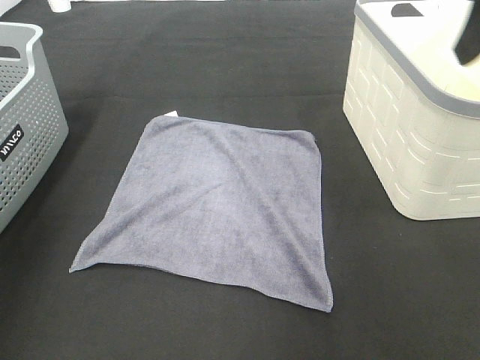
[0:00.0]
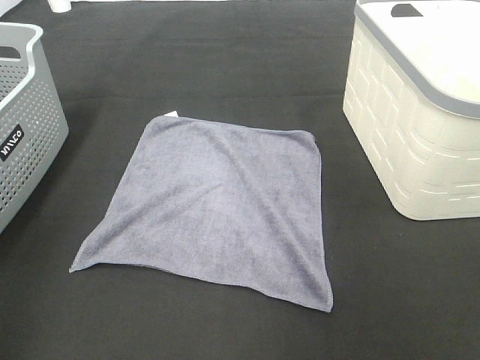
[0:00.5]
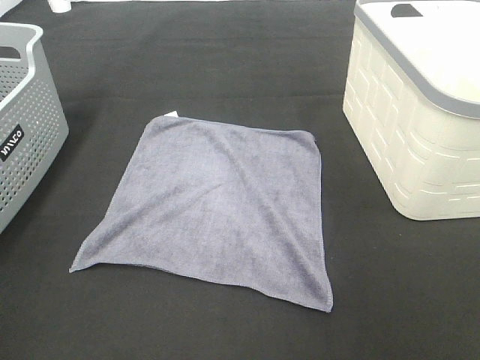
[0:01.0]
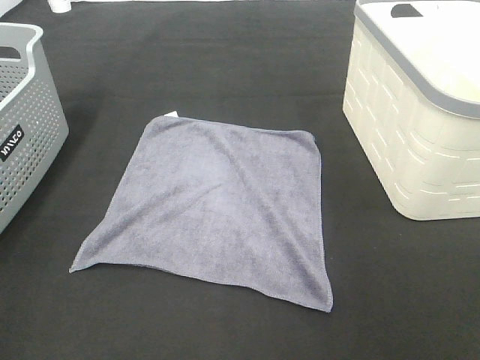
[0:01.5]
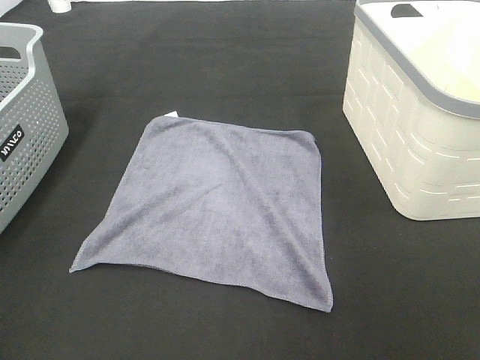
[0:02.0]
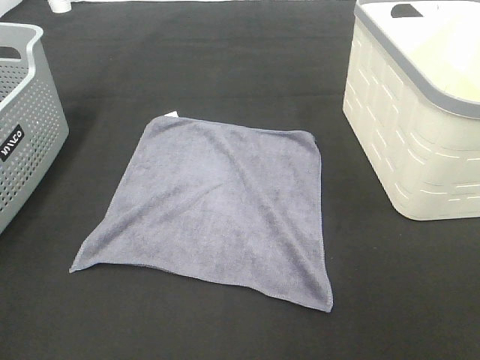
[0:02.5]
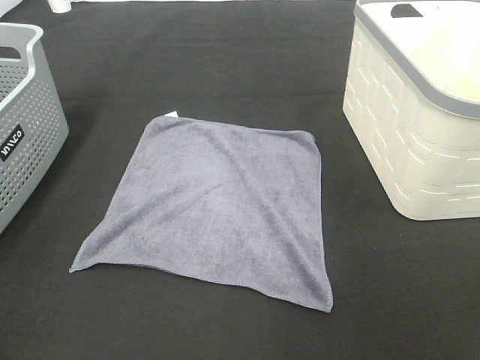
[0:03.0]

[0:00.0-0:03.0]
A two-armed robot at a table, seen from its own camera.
Task of the whole recording: Remove the towel and place it.
0:00.0 to 0:01.5: The right gripper shifts roughly 25 cm backward.

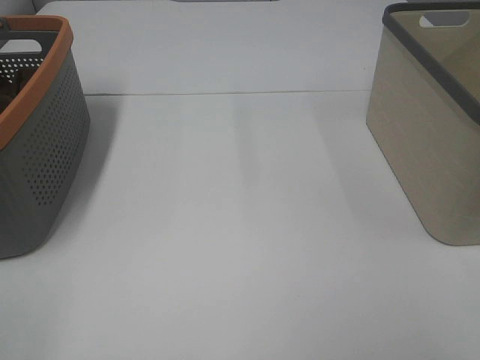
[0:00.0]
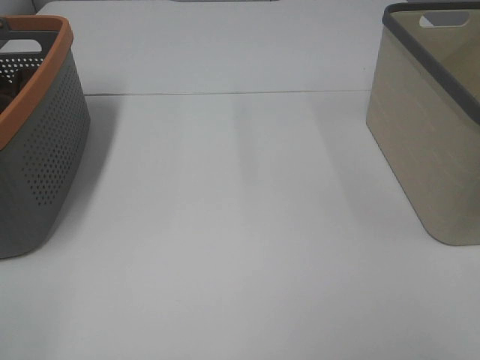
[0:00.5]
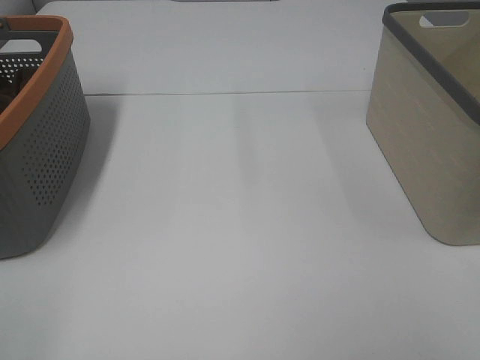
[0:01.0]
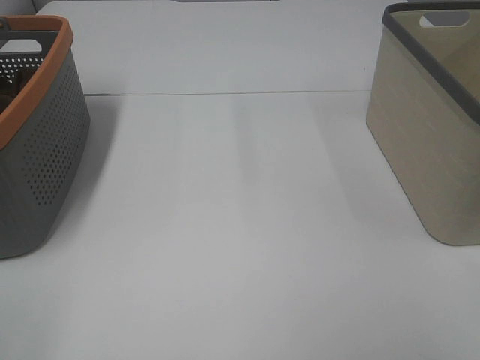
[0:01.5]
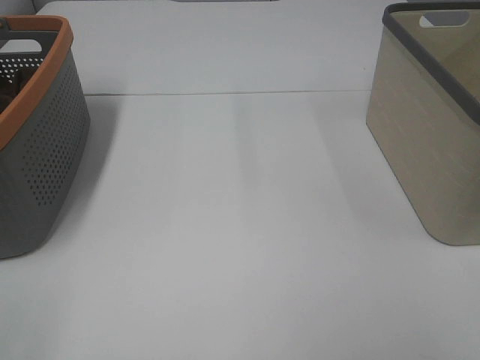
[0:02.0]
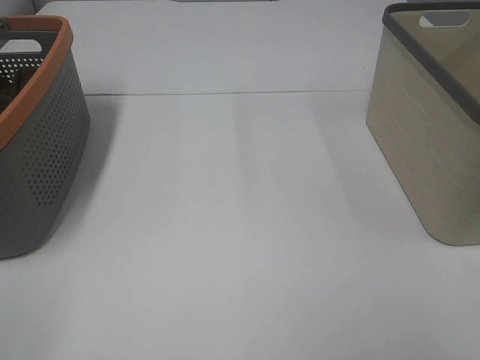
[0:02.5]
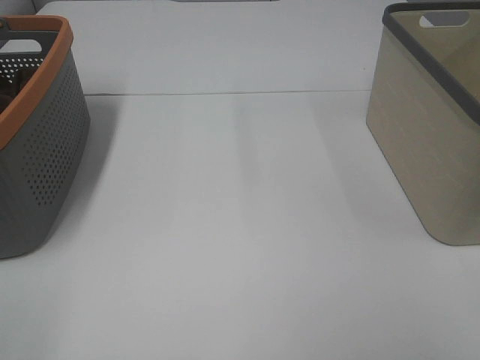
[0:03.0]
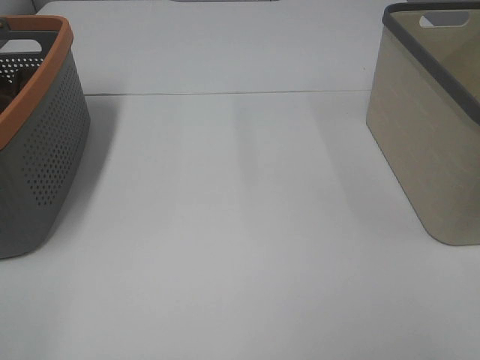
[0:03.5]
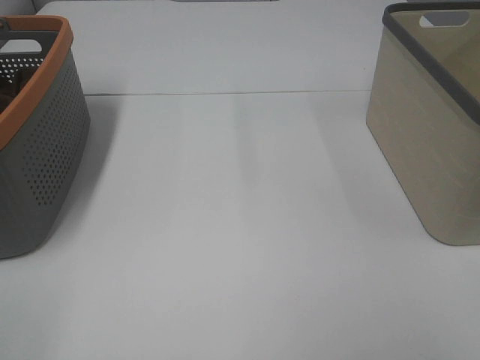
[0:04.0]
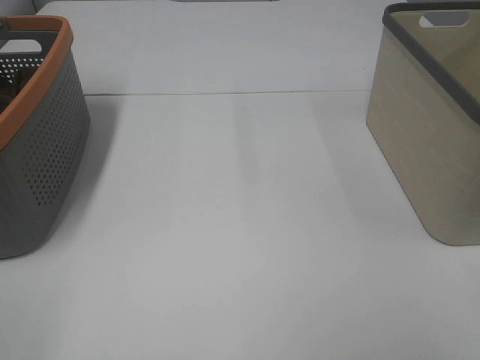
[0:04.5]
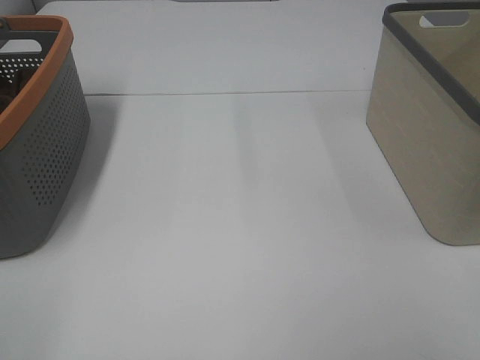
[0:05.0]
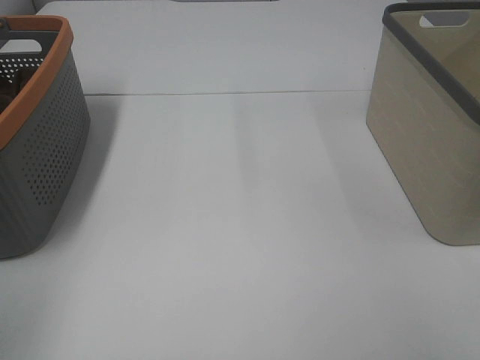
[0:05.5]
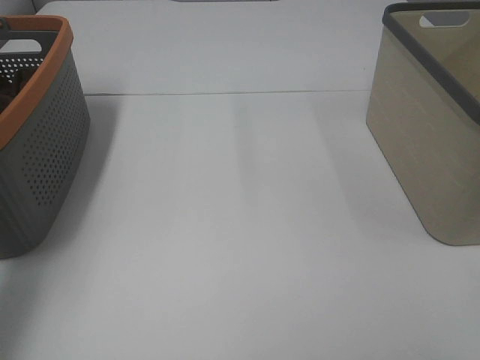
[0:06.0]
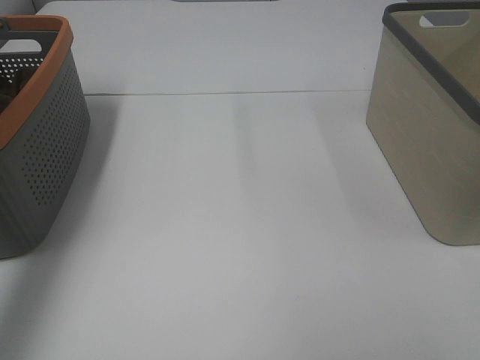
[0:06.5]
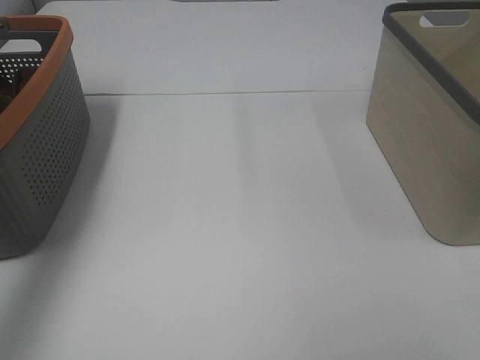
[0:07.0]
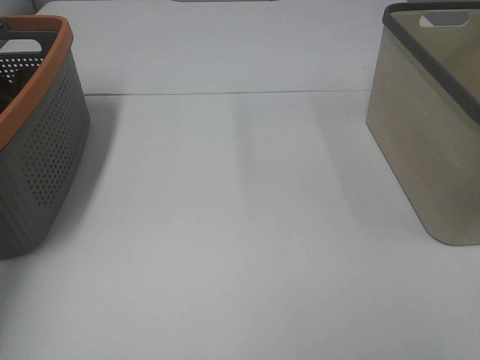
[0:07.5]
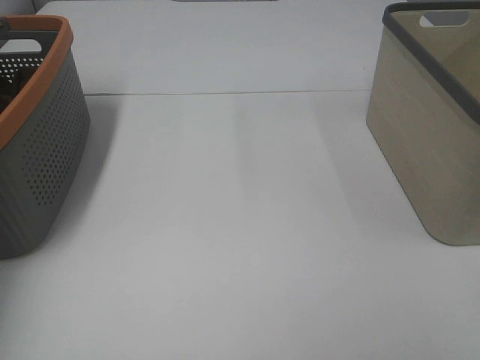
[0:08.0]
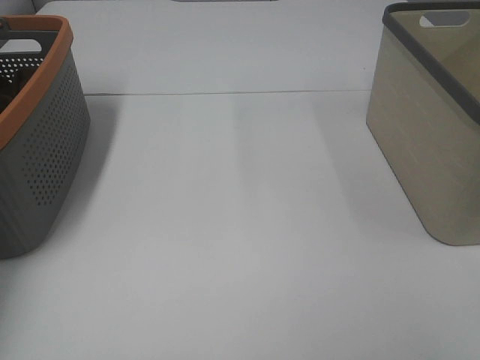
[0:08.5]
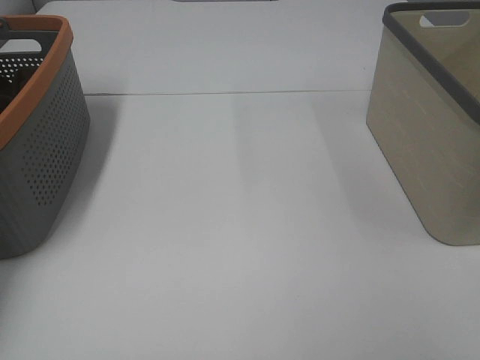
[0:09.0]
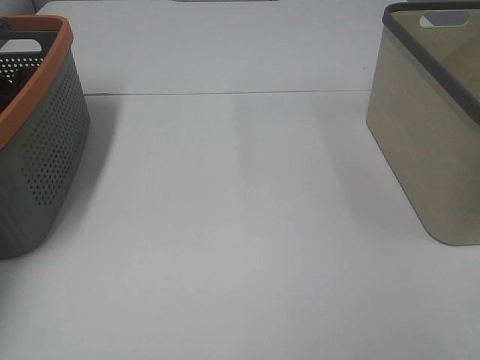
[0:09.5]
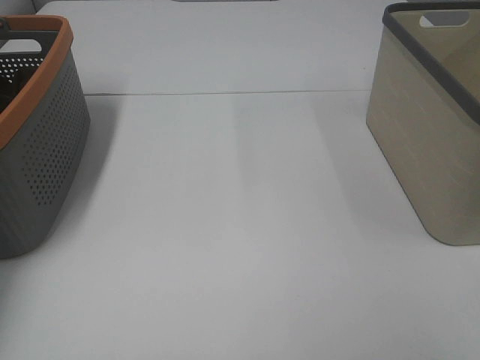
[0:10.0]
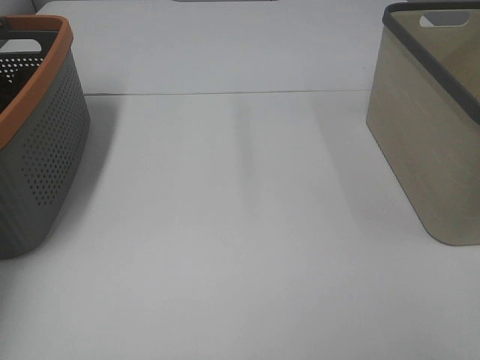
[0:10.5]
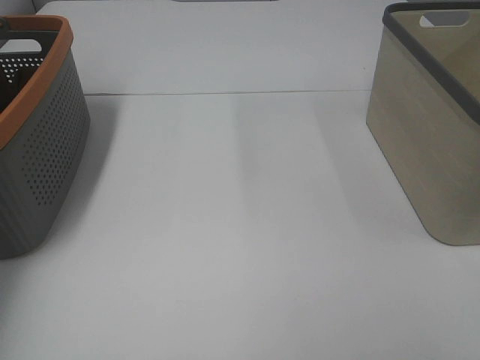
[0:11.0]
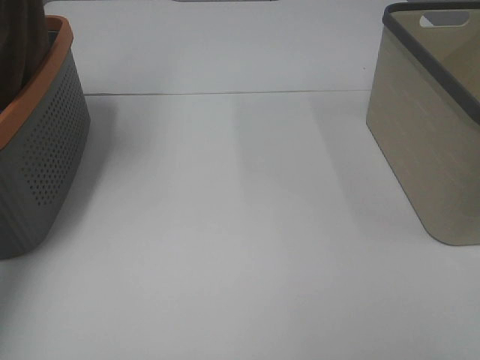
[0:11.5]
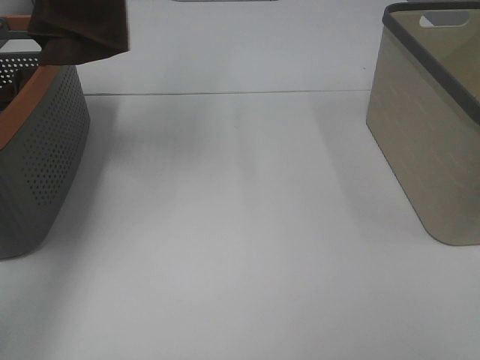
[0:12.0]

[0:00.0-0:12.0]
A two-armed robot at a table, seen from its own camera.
Task of the whole recording: Remove the towel and place it.
0:00.0 to 0:04.0: The two grippers keep their place.
0:04.0 to 0:06.0: The left gripper travels forward by approximately 20 cm.
0:06.0 to 0:08.0: The left gripper heads forward and to the left, covering some 25 cm.
0:10.0 to 0:12.0: The left gripper heads upward and to the right, covering approximately 35 cm.

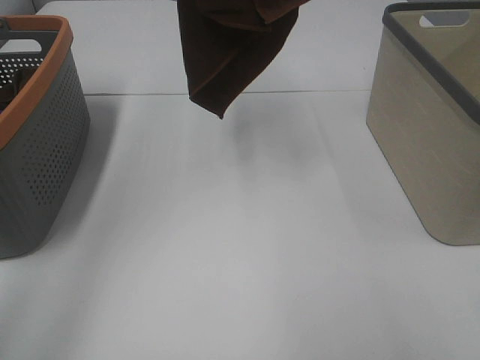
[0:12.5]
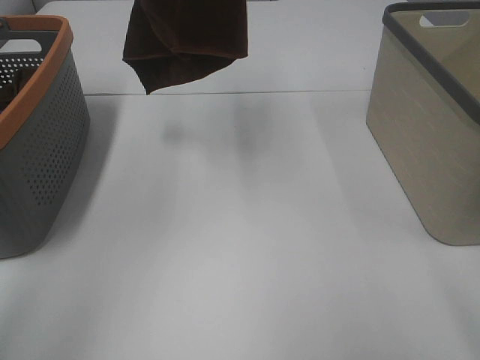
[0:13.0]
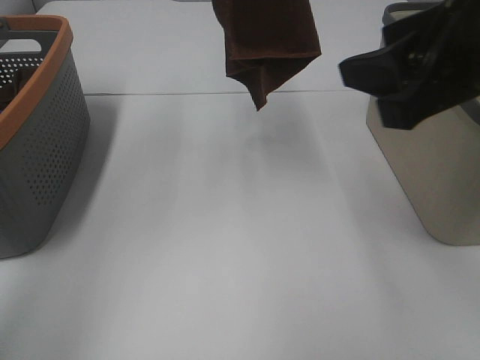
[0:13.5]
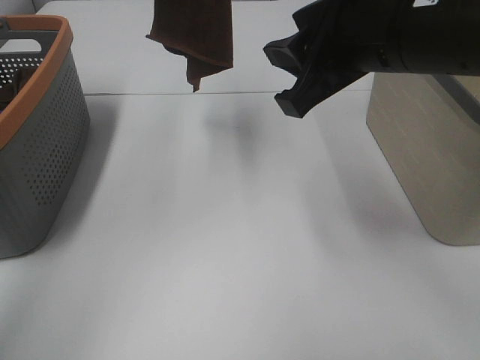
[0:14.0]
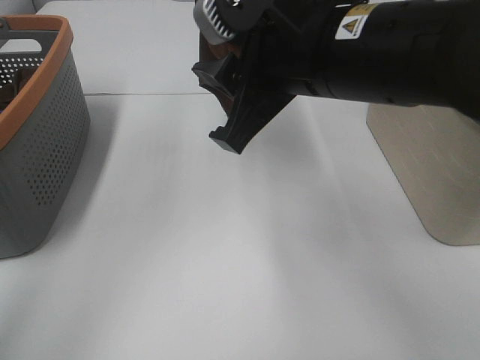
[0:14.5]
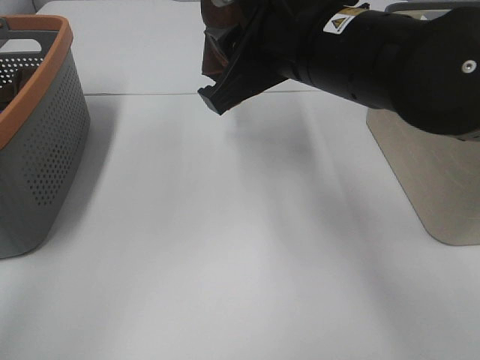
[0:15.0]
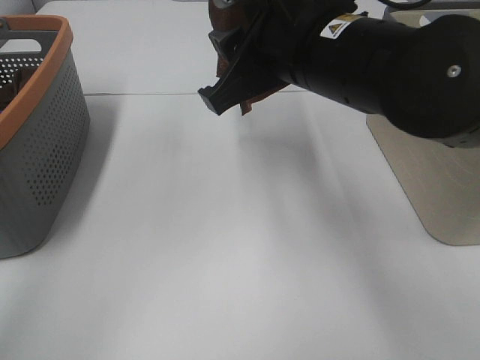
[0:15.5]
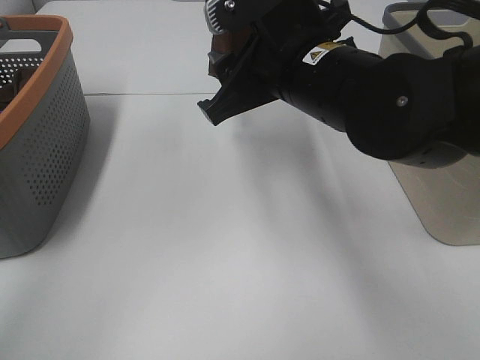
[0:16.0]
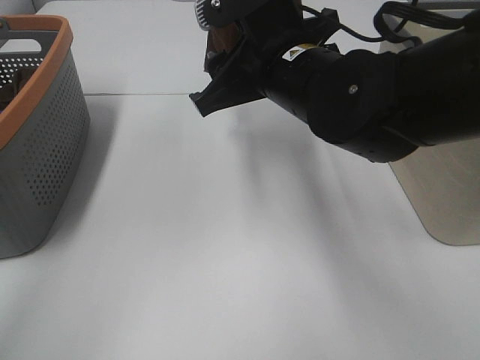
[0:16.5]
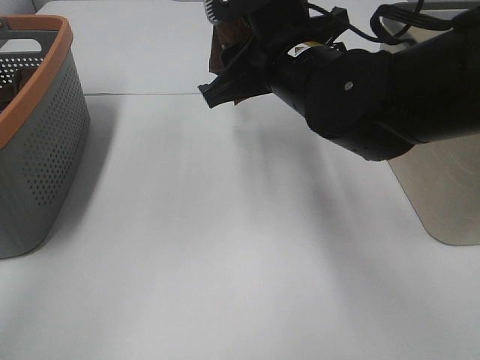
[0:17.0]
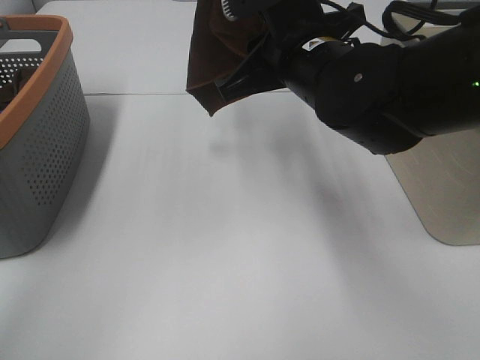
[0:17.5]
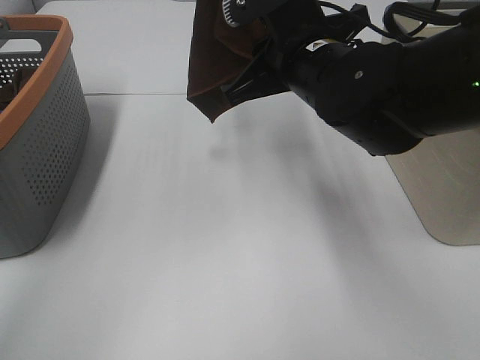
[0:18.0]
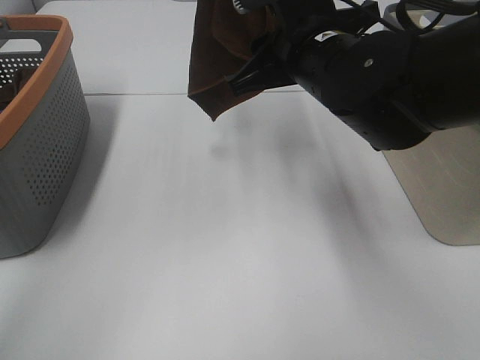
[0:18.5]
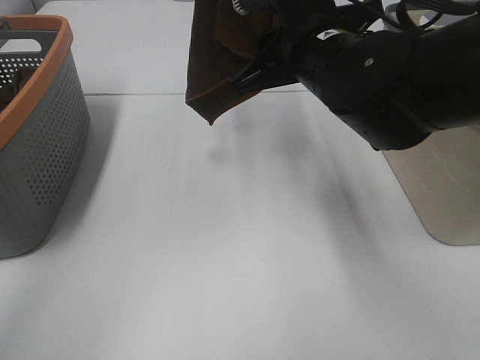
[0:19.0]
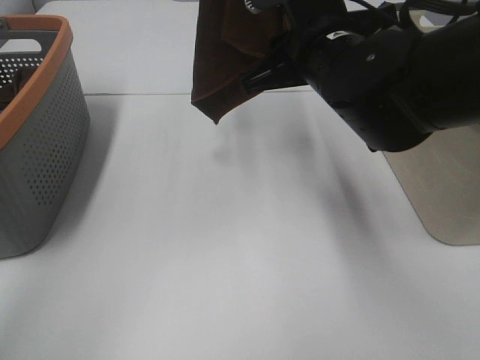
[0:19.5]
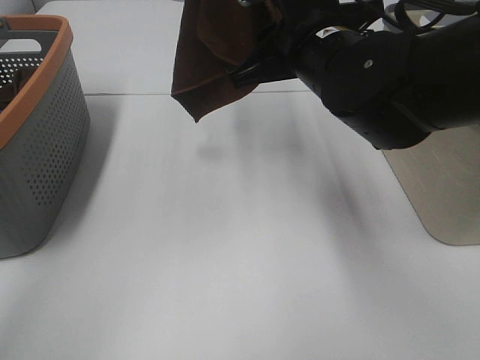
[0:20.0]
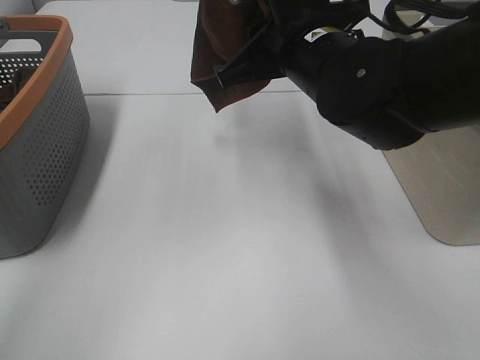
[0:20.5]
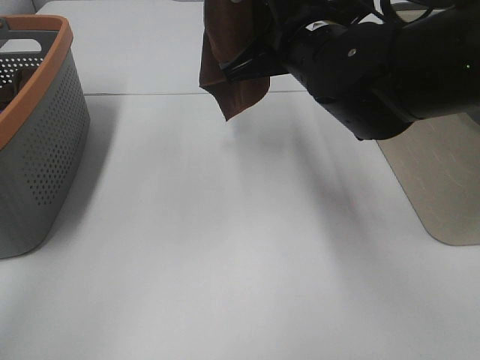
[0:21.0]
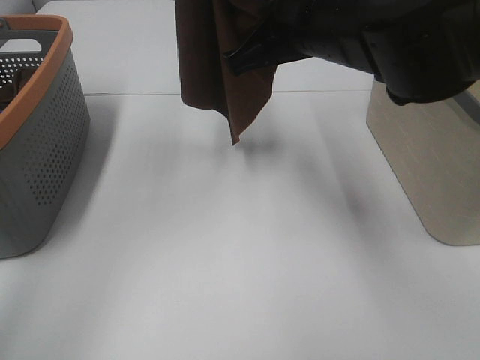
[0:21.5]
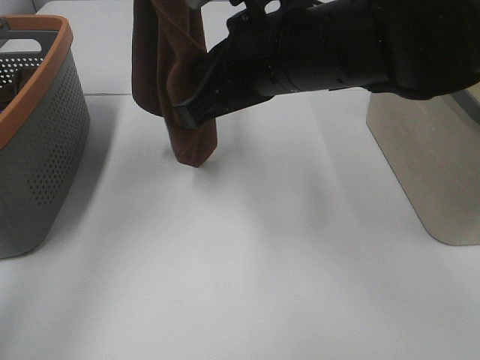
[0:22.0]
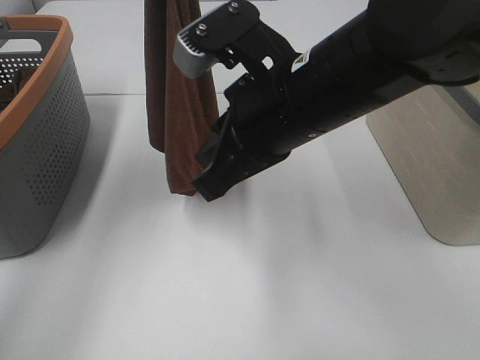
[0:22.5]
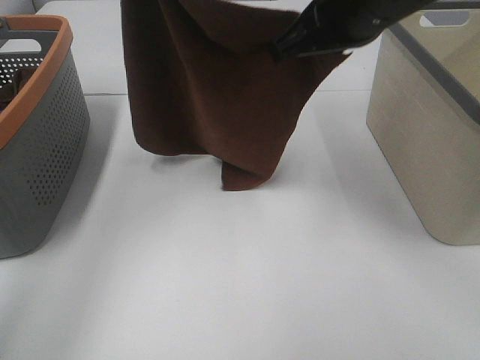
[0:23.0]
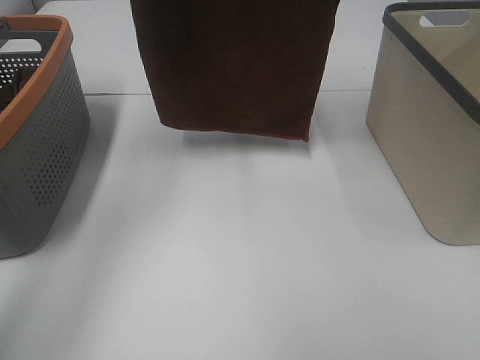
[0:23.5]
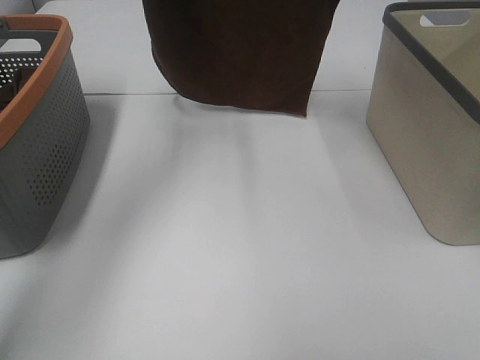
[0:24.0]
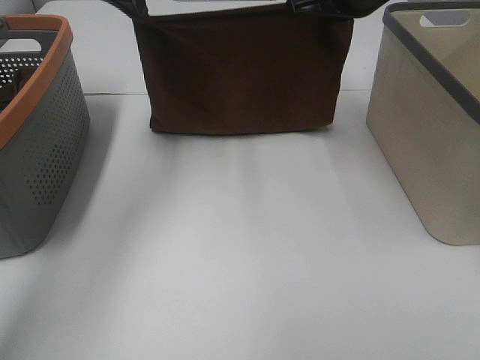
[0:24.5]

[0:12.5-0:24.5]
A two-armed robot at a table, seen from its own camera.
Task of the whole recording: Remove the towel and place it.
Step, 0:12.5 to 0:18.5: Right hand: grab a corner of the brown towel and straighten it.
Step, 0:19.0 to 0:21.5: Left hand: spread the brown towel flat on the table.
Step, 0:19.0 to 0:21.5: Right hand: spread the brown towel flat on the table.
0:12.5 to 0:14.5: The left gripper changes place by some 5 cm. The right gripper shifts about 30 cm forward and to the left.
0:14.5 to 0:16.5: The right gripper shifts about 5 cm forward.
0:16.5 to 0:20.5: The grippers move only a little.
0:20.5 to 0:22.5: The left gripper heads to the left, covering roughly 5 cm. The right gripper heads backward, covering roughly 5 cm, and closes.
0:22.5 to 0:24.5: The left gripper shifts roughly 15 cm downward and forward. Meanwhile the right gripper shifts roughly 20 cm forward and to the right.
